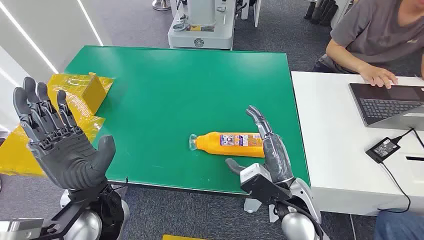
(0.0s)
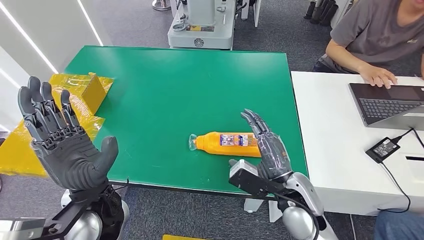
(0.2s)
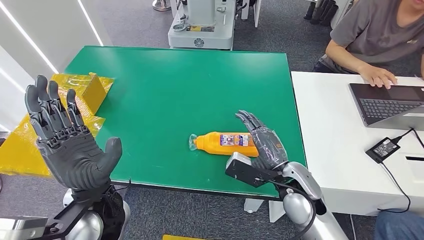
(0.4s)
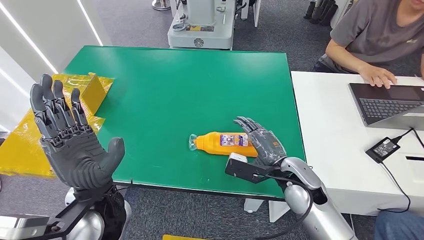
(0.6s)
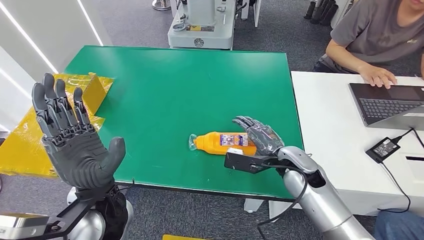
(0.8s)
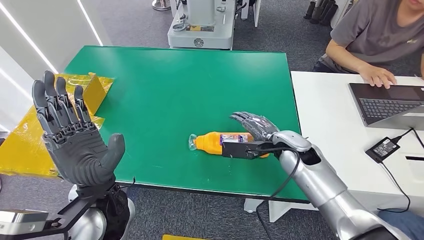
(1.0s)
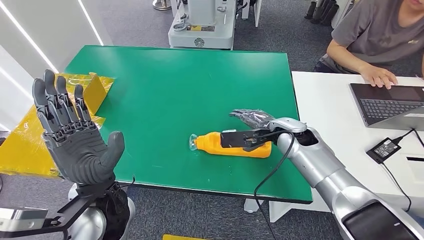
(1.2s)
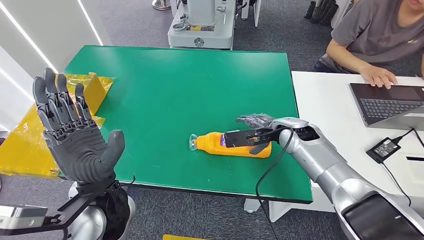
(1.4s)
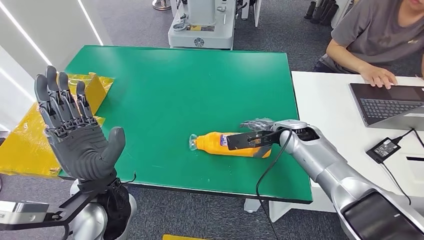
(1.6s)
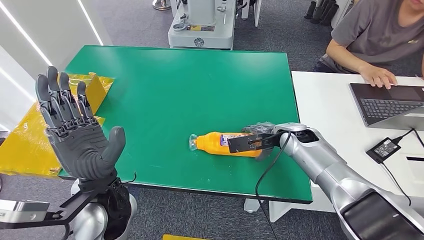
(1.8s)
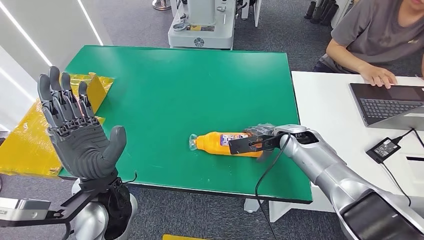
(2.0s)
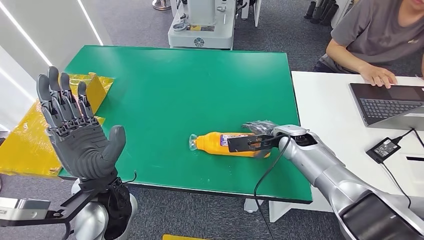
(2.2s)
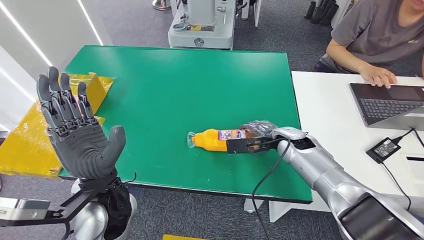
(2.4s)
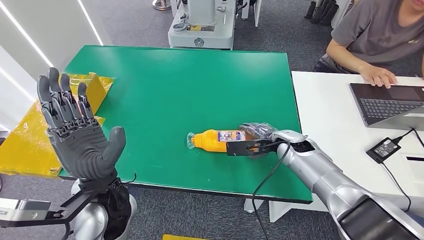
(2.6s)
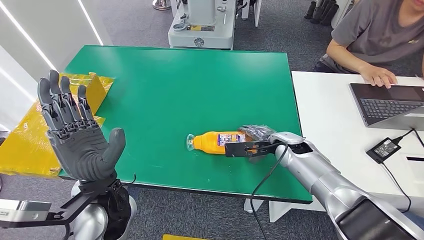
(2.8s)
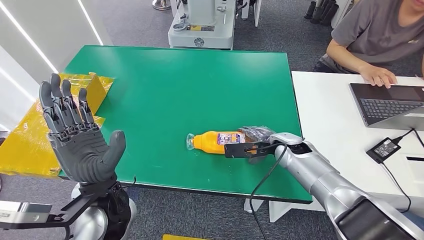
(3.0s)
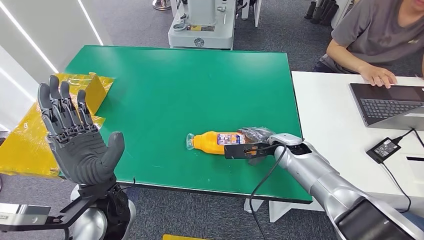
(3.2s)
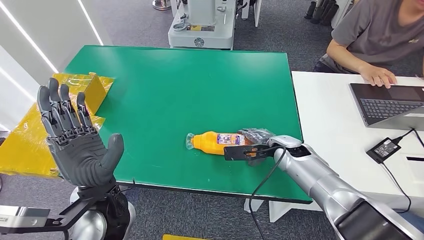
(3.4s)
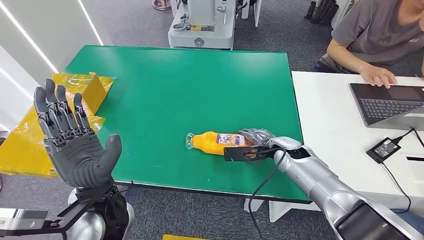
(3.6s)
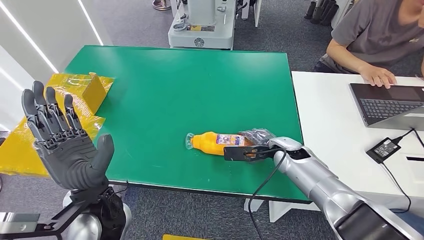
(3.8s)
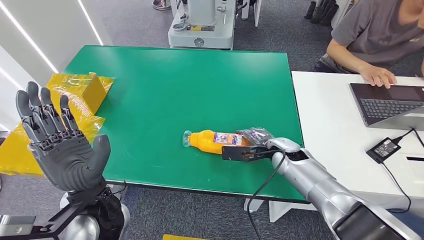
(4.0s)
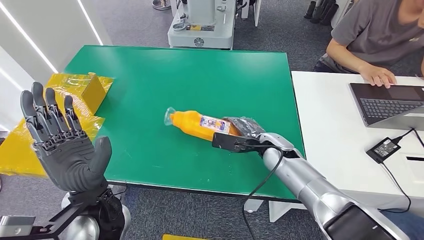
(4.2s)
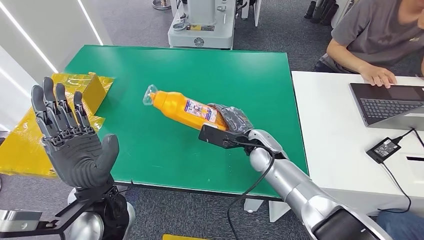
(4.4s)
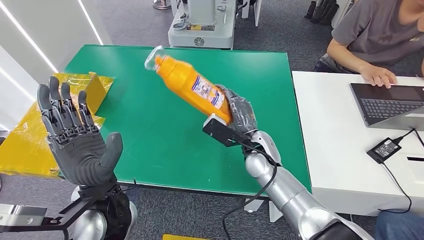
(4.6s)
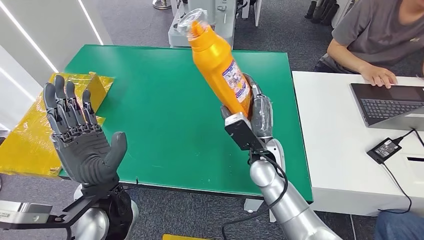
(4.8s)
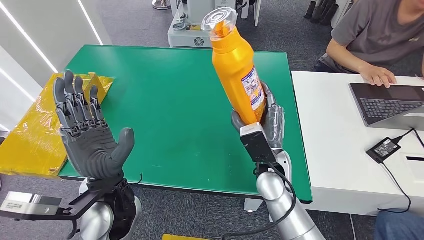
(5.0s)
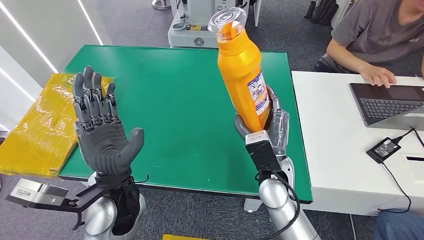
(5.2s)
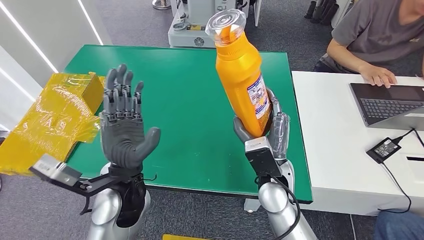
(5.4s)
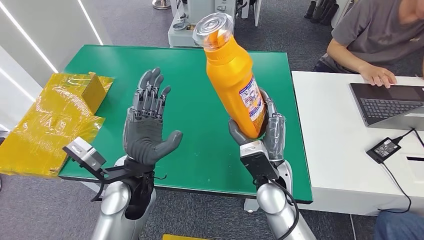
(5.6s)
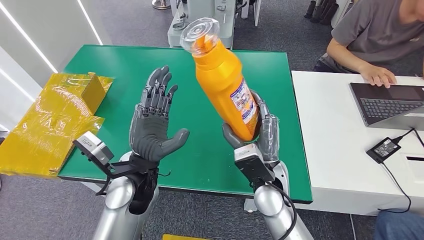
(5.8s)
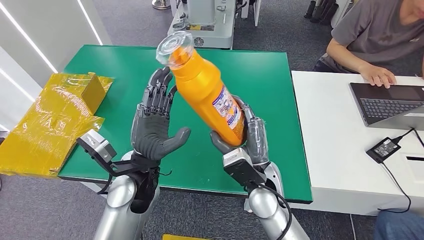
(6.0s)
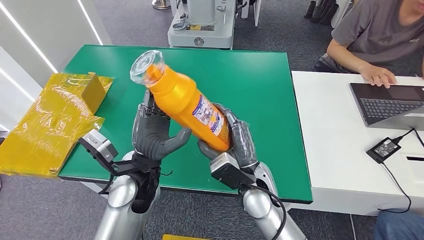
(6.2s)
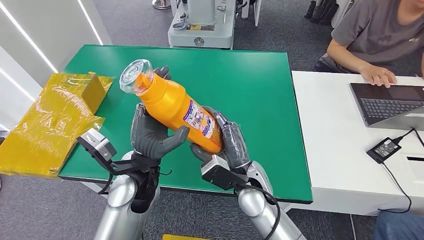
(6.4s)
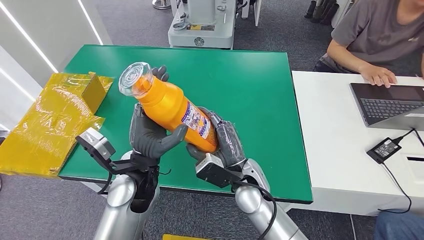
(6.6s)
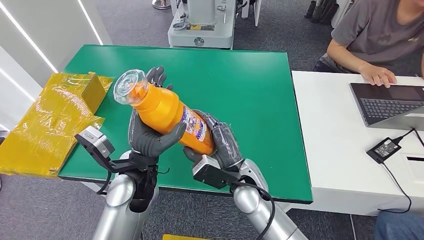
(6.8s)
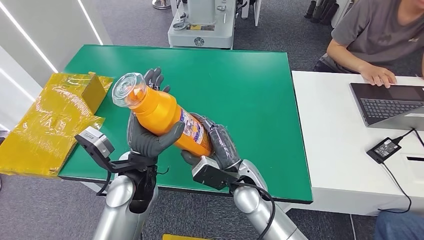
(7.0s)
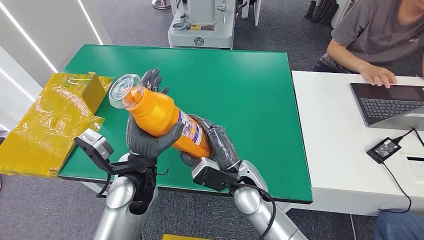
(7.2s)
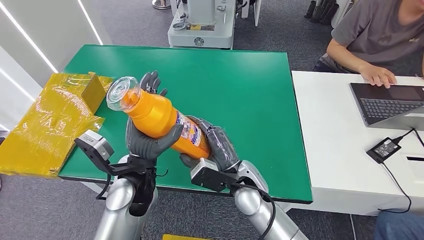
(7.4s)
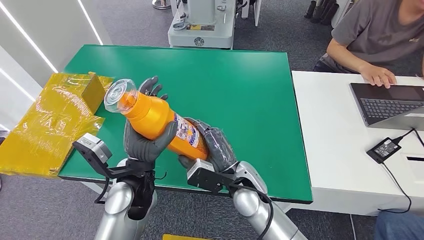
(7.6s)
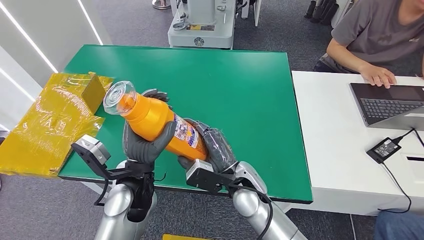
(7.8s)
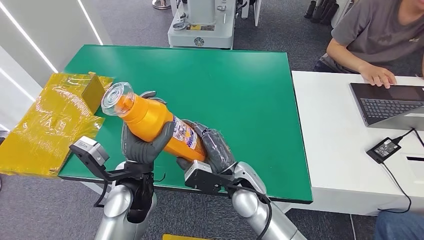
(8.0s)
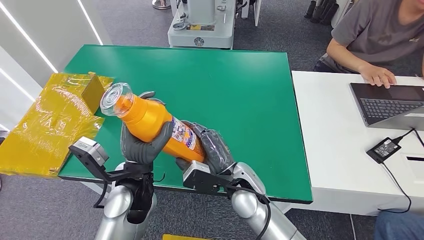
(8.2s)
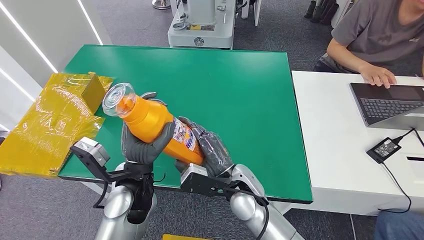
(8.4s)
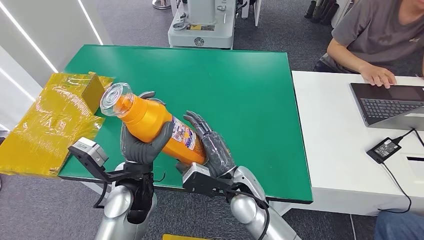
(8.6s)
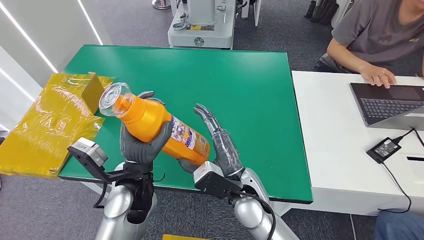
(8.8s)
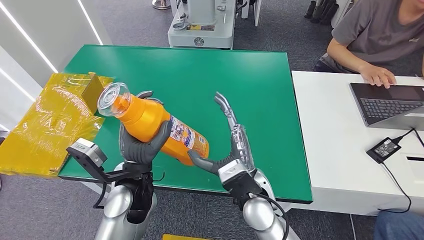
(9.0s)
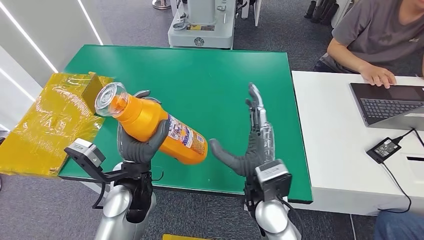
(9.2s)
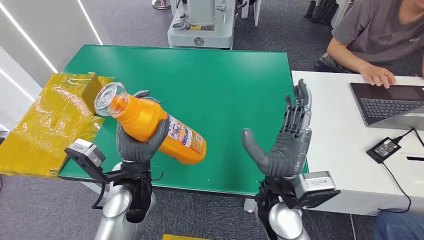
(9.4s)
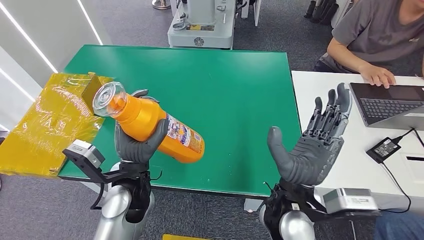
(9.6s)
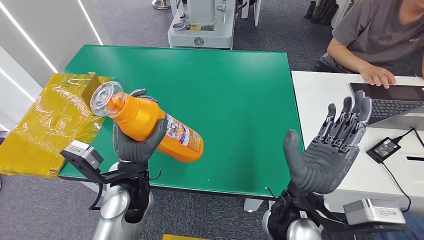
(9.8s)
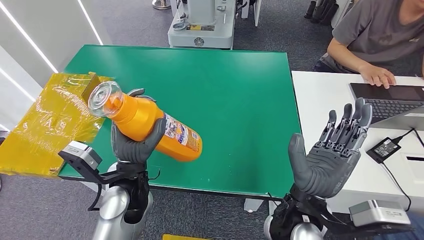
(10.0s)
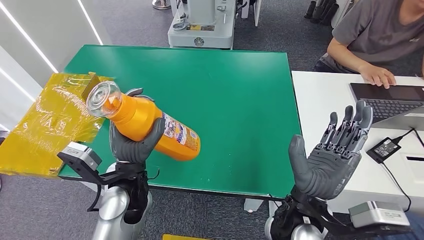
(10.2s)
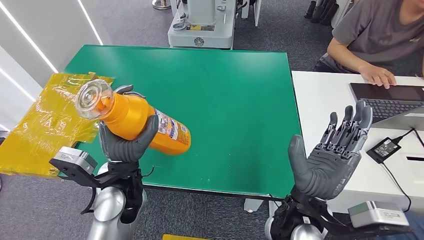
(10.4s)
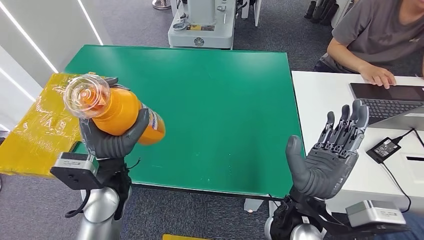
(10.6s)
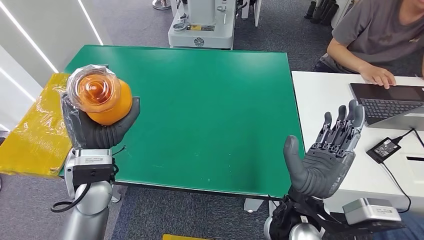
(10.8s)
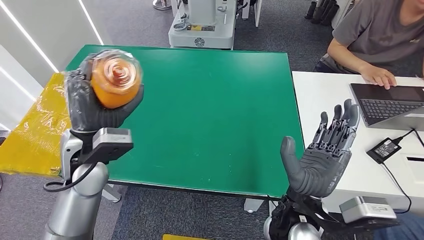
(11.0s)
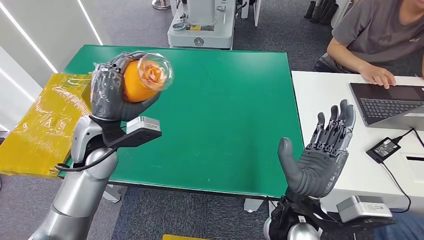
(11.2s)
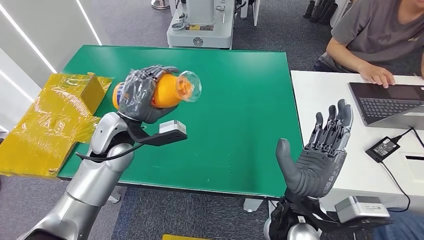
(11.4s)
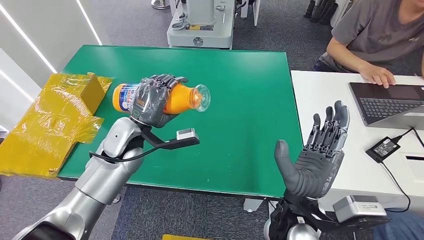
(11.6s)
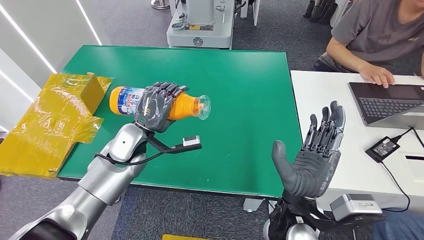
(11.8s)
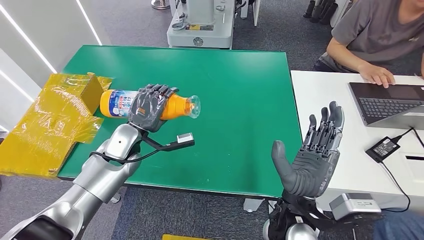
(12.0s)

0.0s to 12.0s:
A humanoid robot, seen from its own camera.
Step, 0.0s to 4.6s: Pick up the bottle from the table.
1.6s to 3.0s: The hands stay close to where they were, moving slightly.
3.0s to 4.4s: The right hand is displaced to the left by approximately 10 cm.
9.0s to 10.4s: The right hand shifts roughly 5 cm upward.

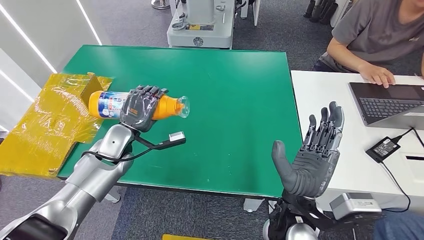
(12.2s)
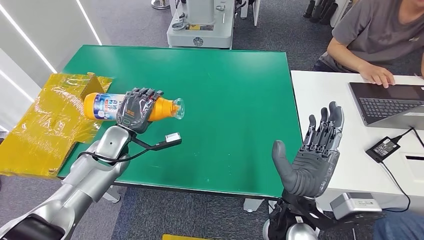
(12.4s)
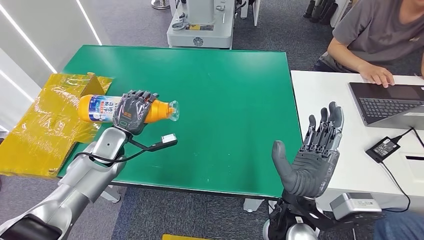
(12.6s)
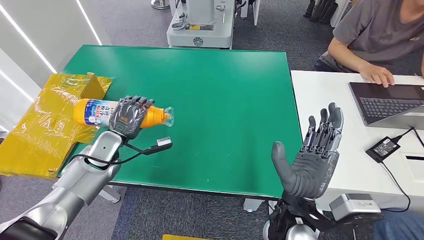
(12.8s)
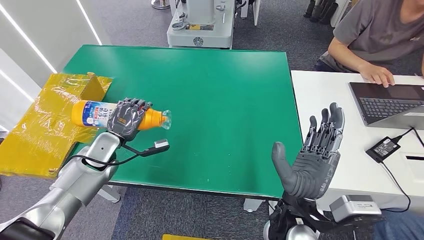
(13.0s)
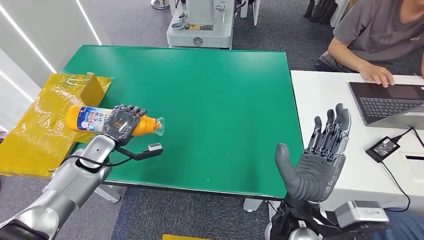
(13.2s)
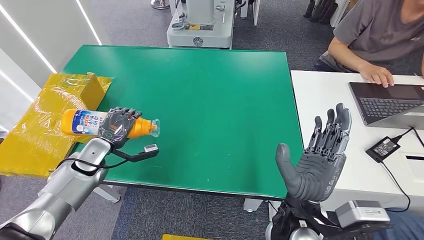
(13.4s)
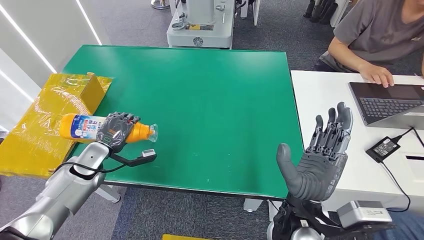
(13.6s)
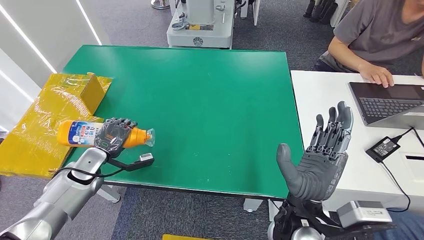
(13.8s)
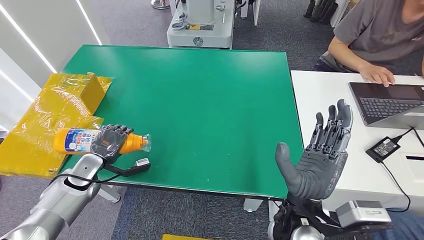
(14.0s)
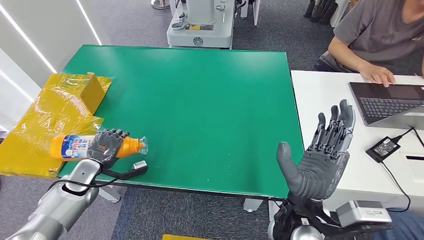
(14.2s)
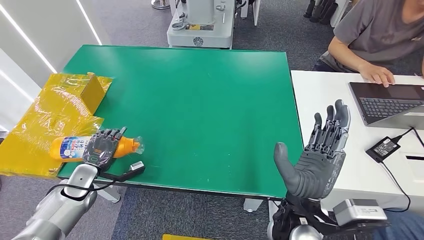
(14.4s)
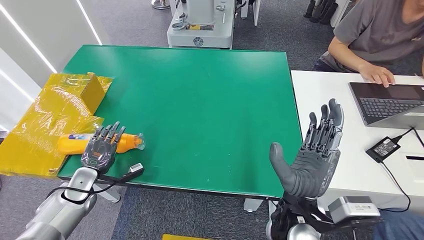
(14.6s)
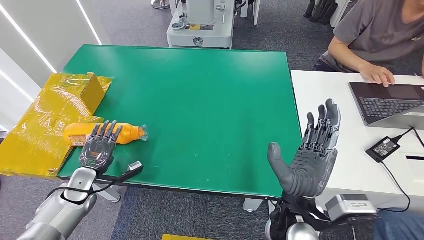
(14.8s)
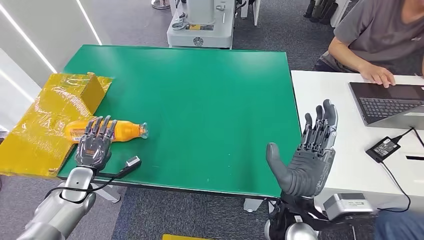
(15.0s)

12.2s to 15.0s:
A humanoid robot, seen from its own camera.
Step, 12.2s to 14.8s: Turn the bottle to the front side.
12.2s to 13.6s: The left hand moves to the left and backward, about 10 cm.
13.6s to 15.0s: The left hand moves backward, roughly 5 cm.

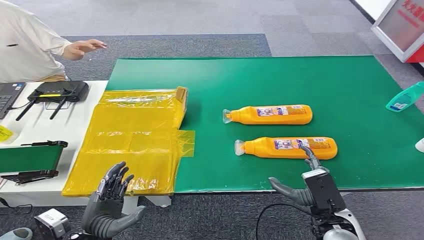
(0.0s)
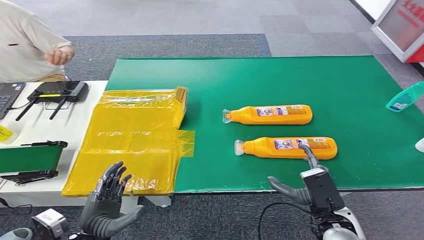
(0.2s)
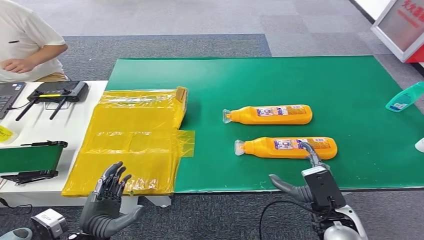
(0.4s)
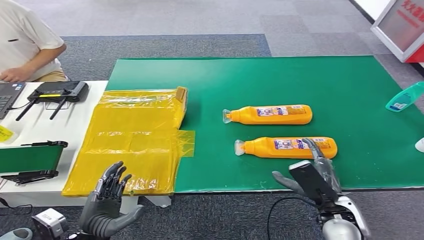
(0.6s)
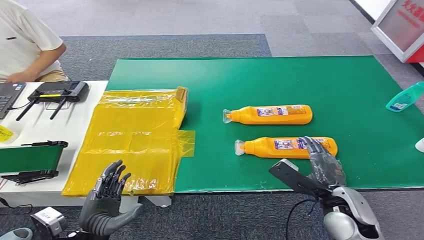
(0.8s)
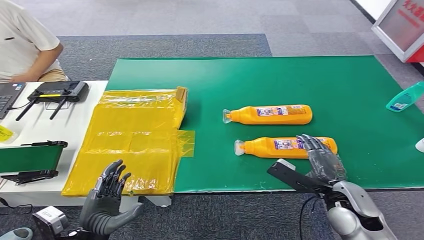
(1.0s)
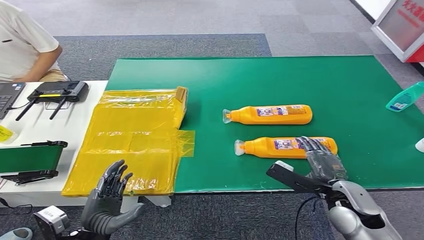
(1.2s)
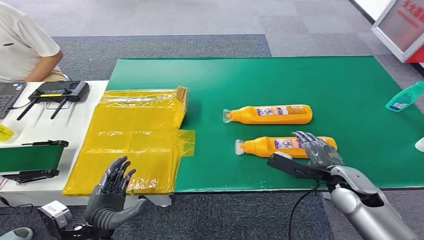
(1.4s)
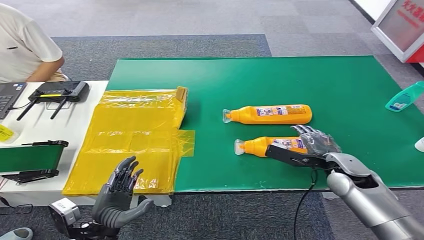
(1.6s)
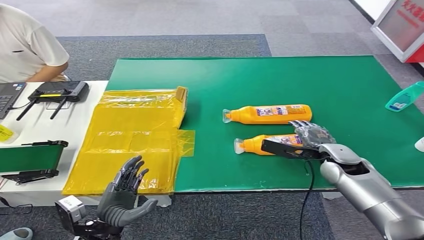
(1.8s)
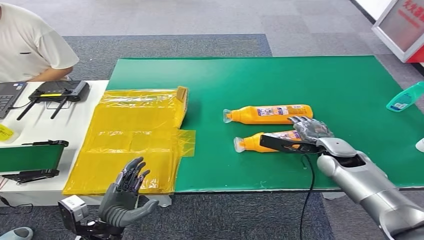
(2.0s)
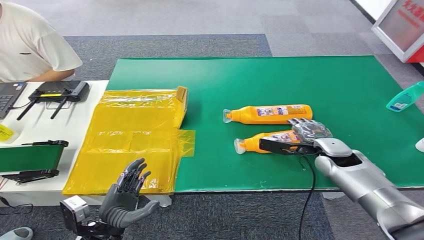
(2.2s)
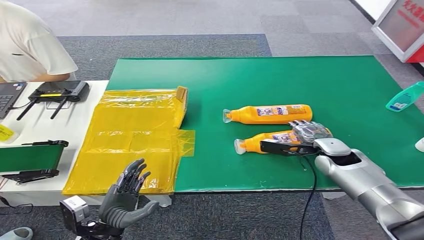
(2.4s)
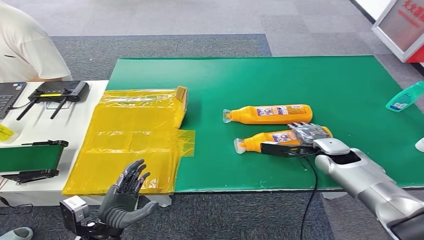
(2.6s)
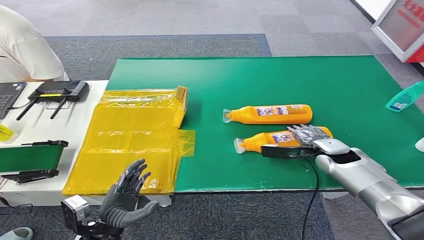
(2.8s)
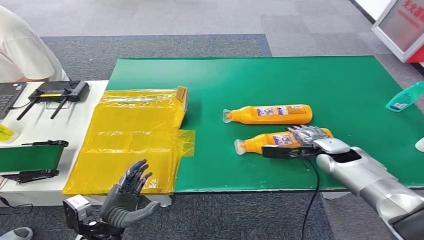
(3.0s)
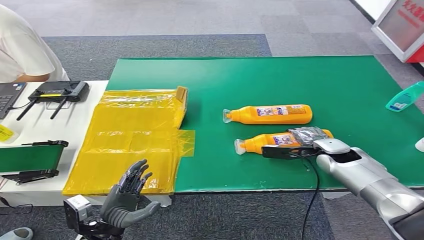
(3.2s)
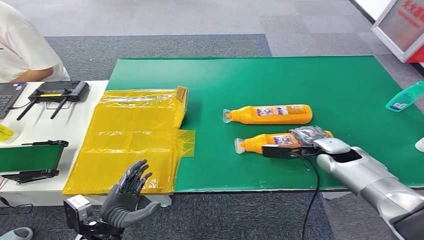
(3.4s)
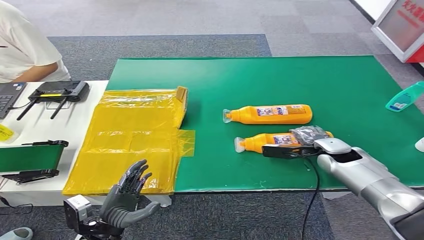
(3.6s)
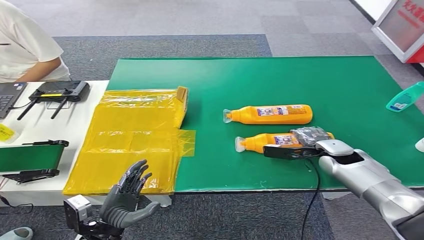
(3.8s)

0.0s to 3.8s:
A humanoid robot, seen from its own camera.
1.2s to 2.6s: The right hand goes approximately 15 cm forward.
2.6s to 3.8s: There are only small adjustments of the hands.
